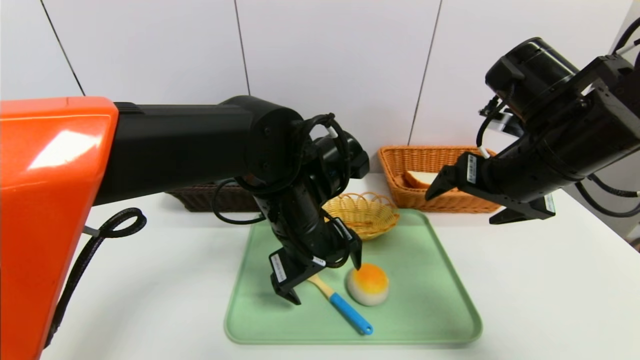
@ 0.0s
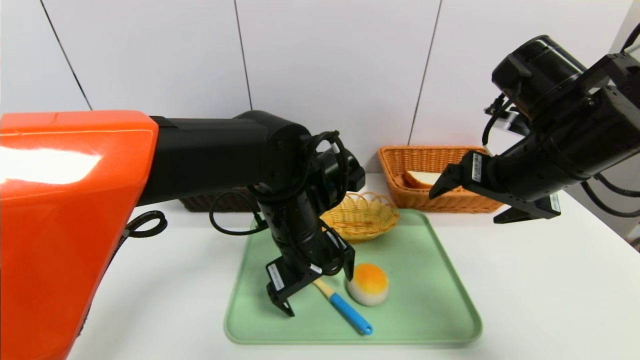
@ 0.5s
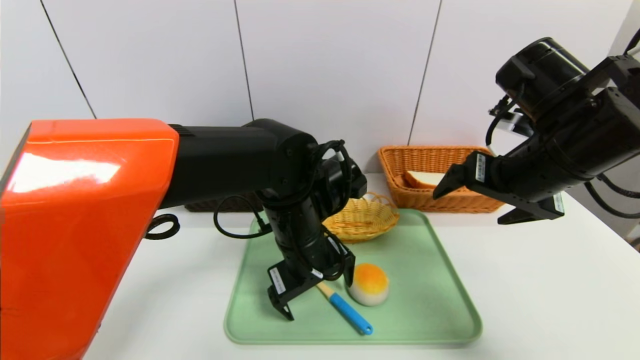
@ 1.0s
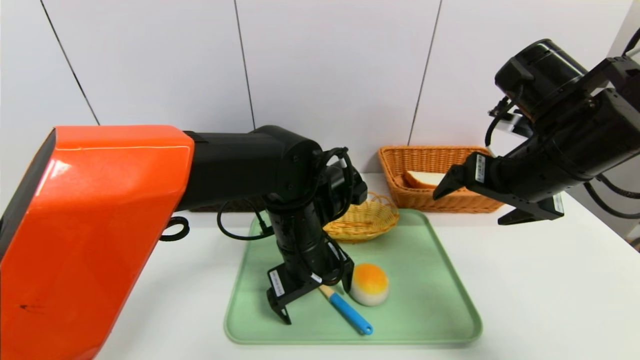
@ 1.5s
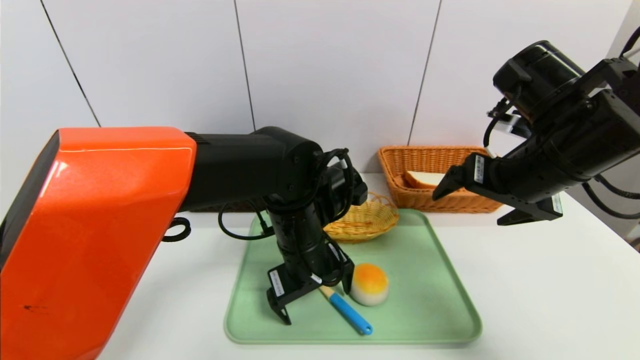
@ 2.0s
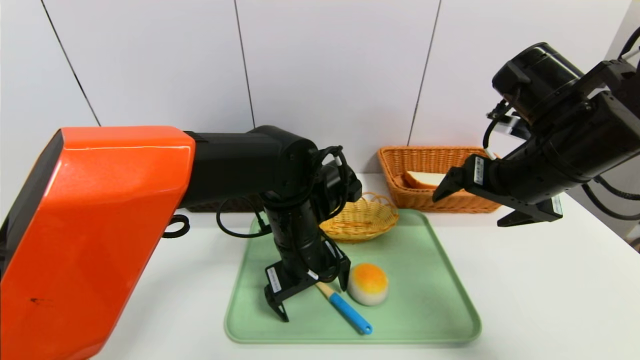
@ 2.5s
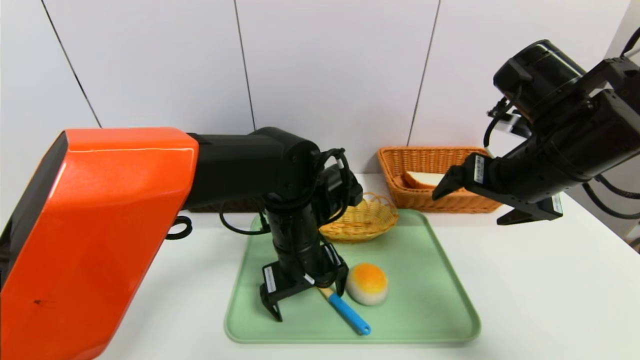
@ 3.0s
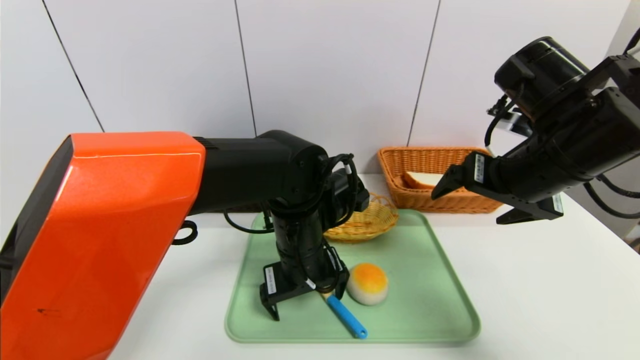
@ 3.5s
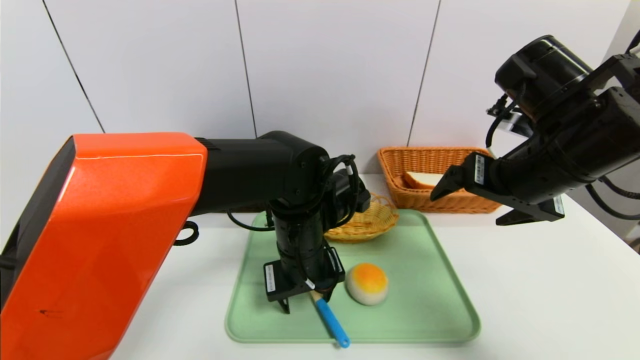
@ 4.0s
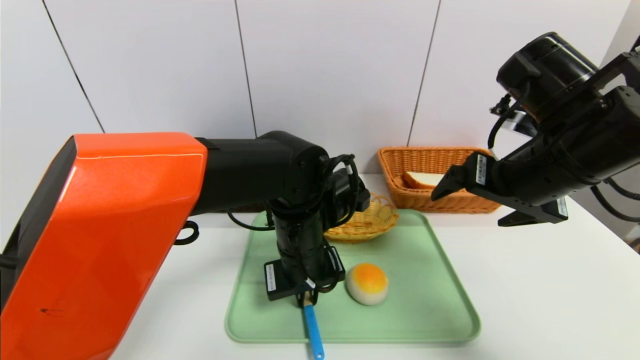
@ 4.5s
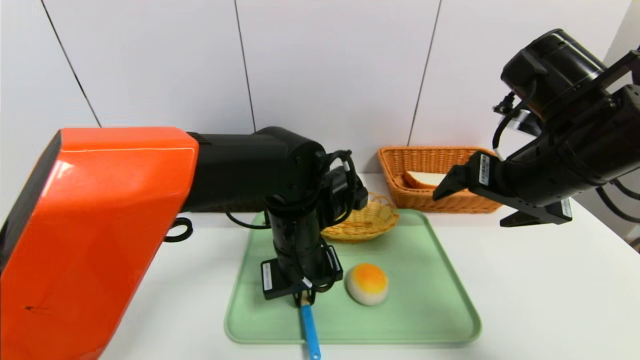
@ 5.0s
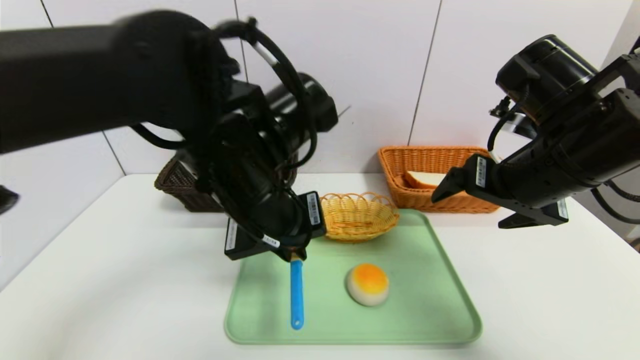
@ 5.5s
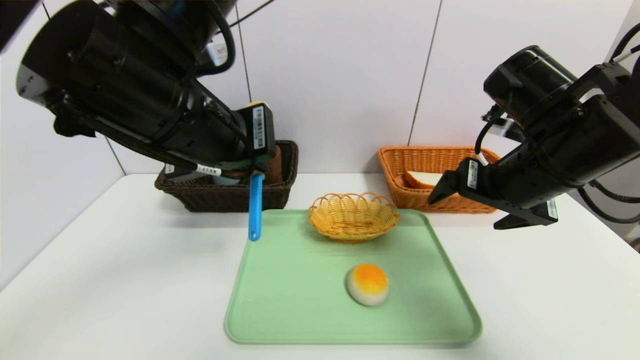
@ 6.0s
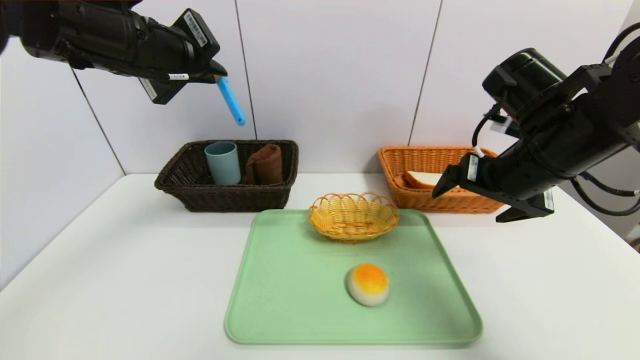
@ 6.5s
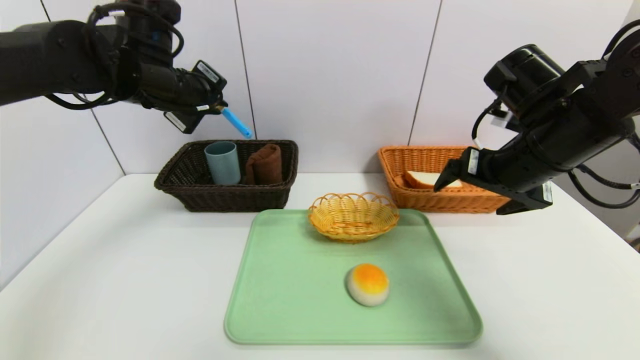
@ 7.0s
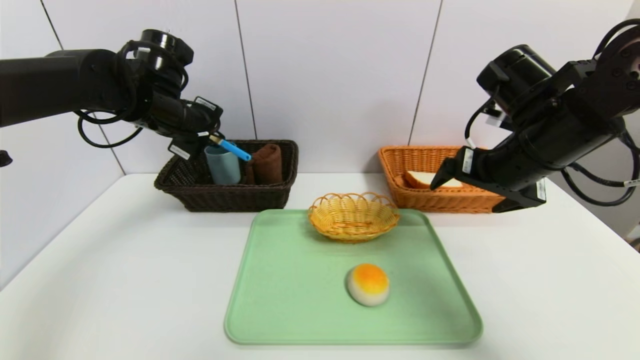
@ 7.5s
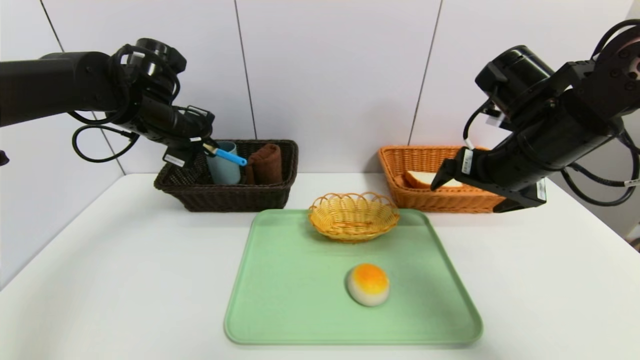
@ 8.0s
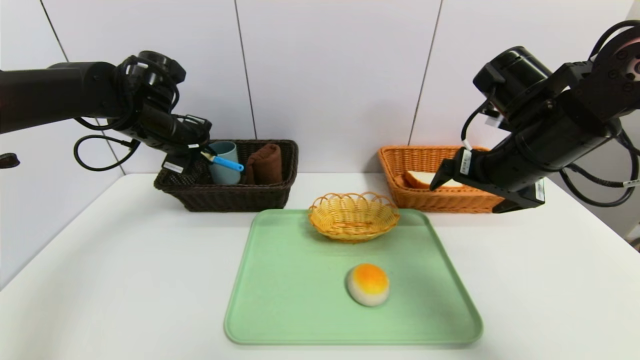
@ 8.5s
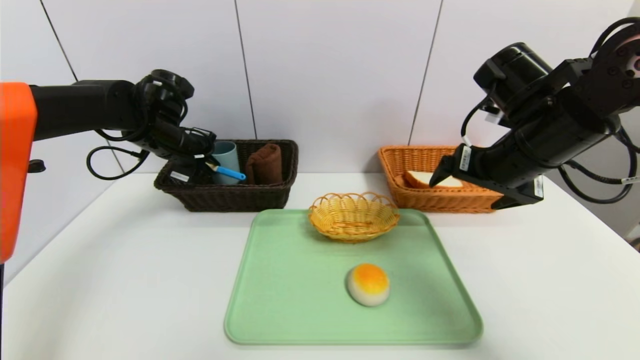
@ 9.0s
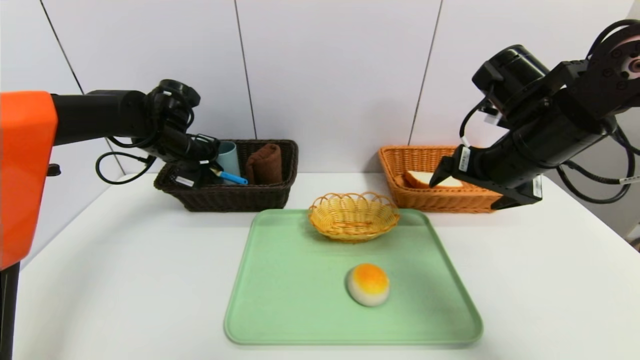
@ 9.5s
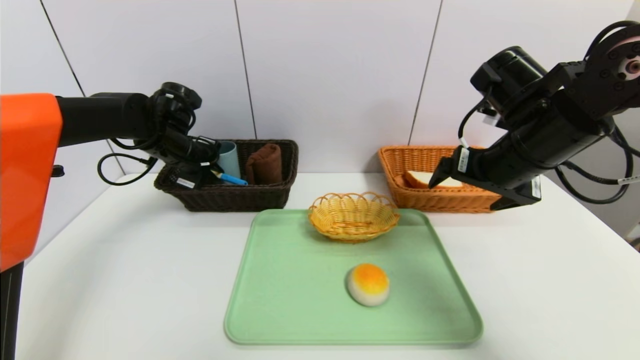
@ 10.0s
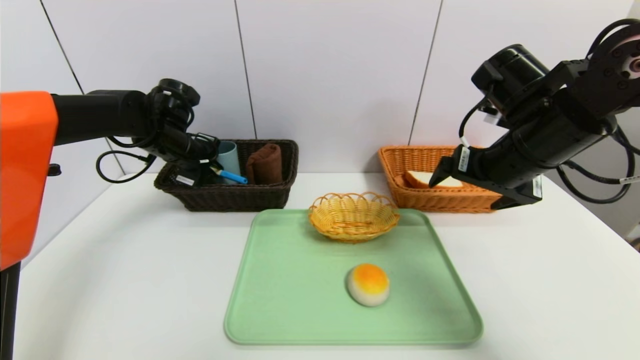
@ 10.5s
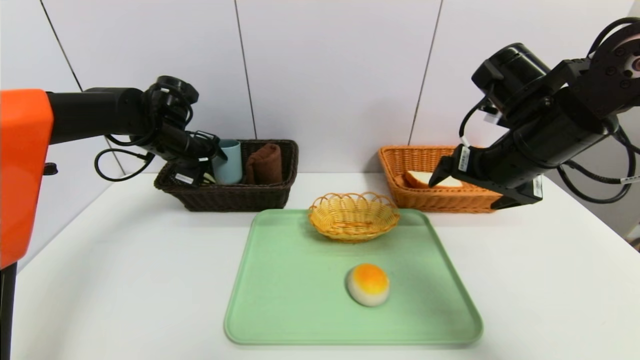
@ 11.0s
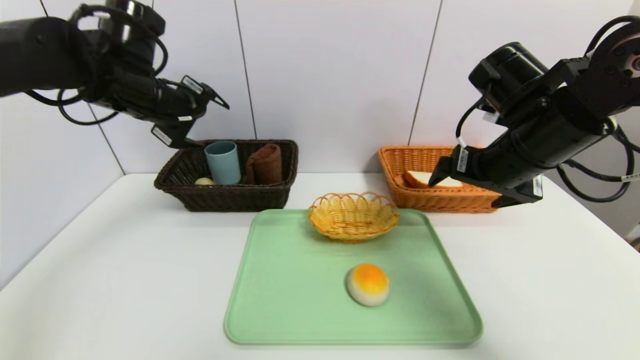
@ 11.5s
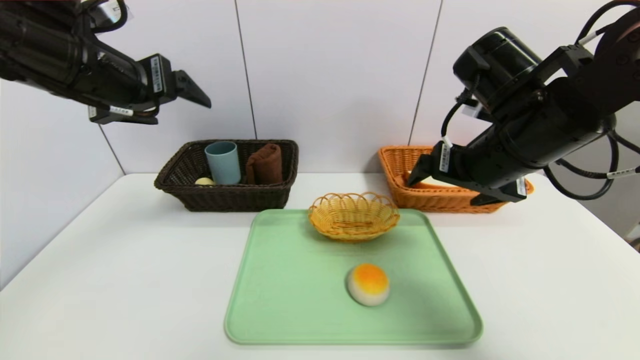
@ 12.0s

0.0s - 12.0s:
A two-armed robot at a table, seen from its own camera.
Task of the whole recording: place the food in the right basket with the right gripper, and place the non food items in the left basket with the left gripper.
Step, 0.0s - 11.0s: Grasp the spoon and put it in the left basket.
2.0s - 4.0s: The left gripper closes its fingers.
4.0s - 6.0s: The left gripper travels upward and to the left by roughly 20 cm, and closes.
6.0s - 8.0s: The left gripper moves forward, to the left and downward, roughly 25 cm.
8.0s - 10.0s: The left gripper shifts some 5 cm downward.
10.0s - 12.0s: The left gripper travels backward and upward by about 20 cm, and opens.

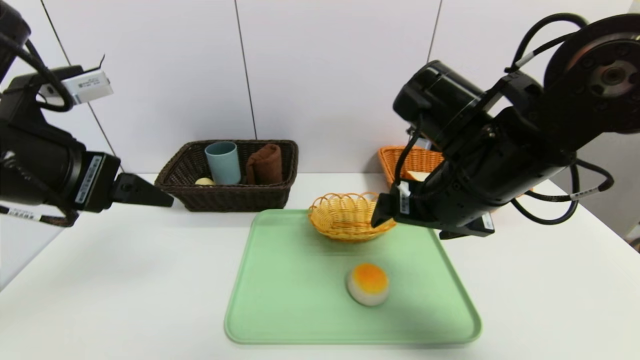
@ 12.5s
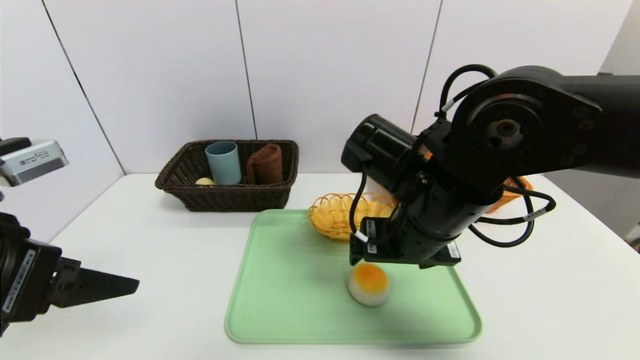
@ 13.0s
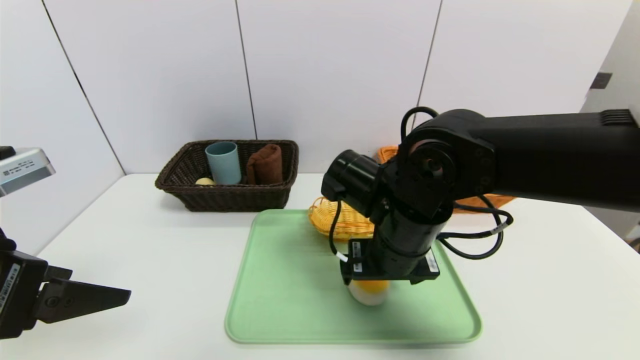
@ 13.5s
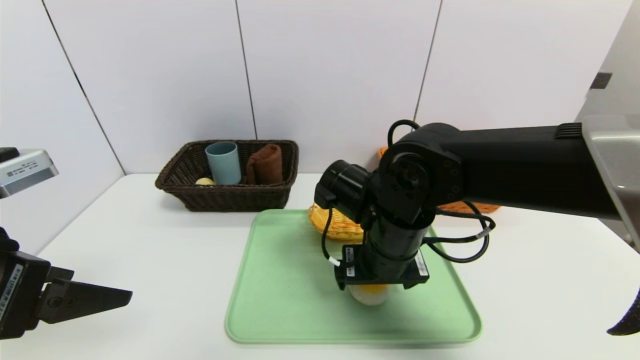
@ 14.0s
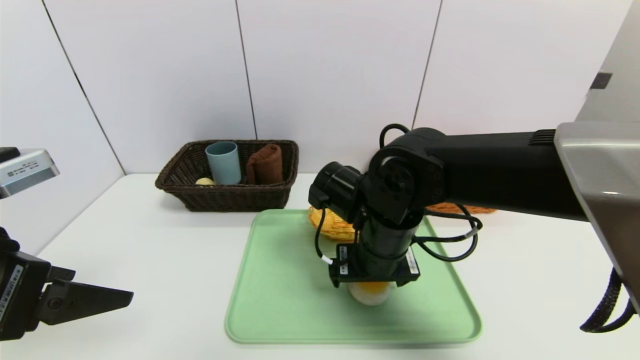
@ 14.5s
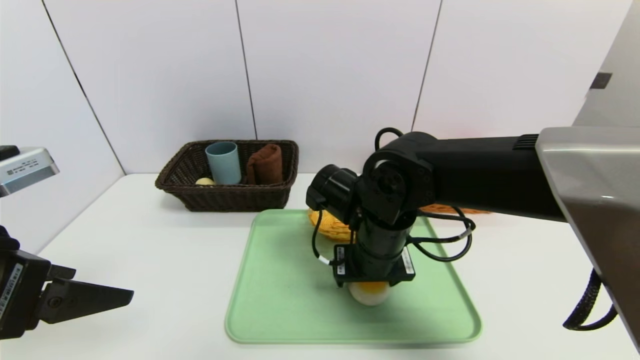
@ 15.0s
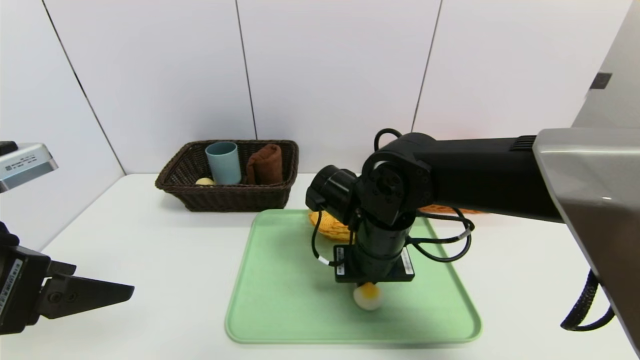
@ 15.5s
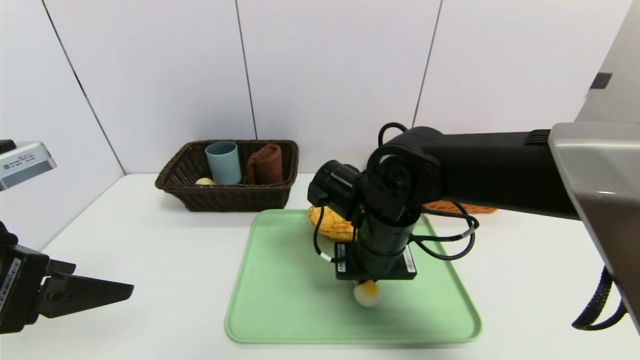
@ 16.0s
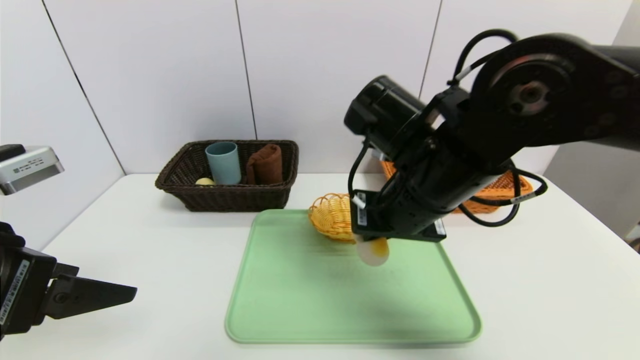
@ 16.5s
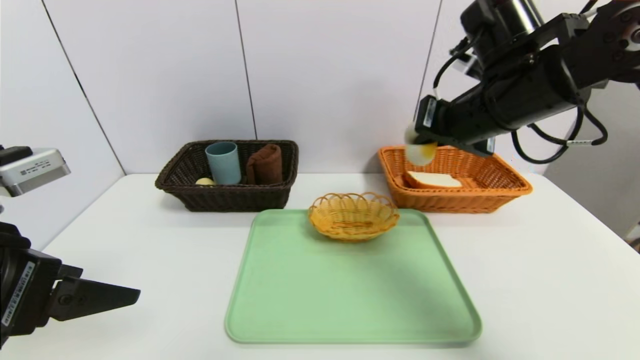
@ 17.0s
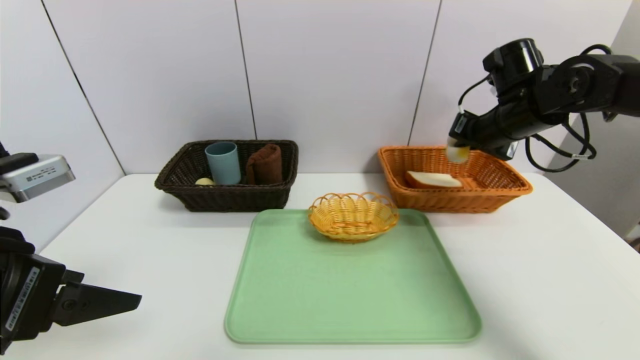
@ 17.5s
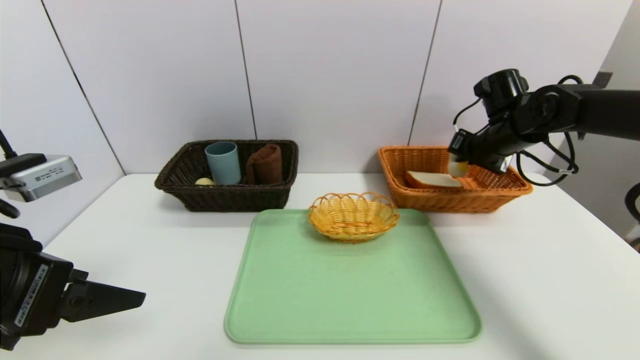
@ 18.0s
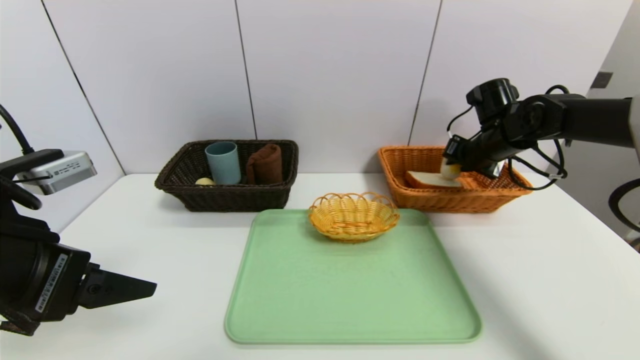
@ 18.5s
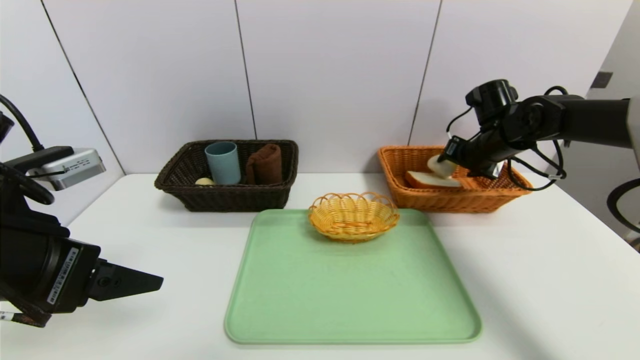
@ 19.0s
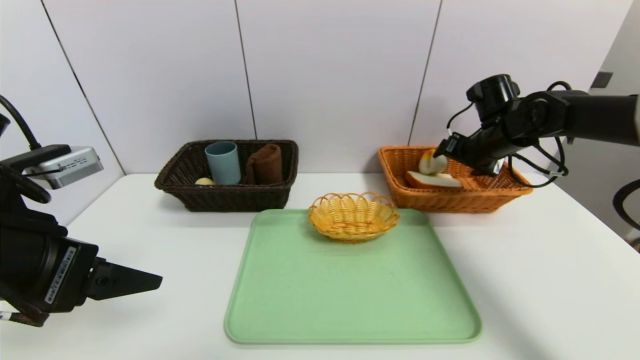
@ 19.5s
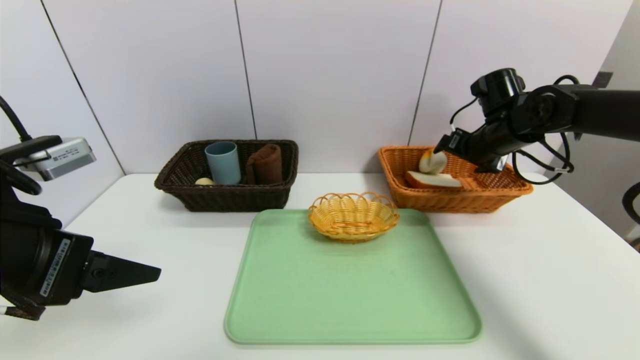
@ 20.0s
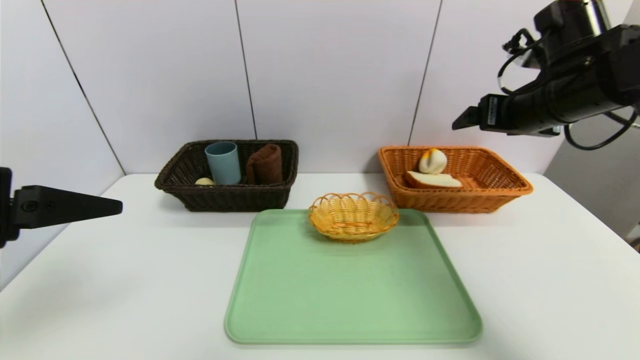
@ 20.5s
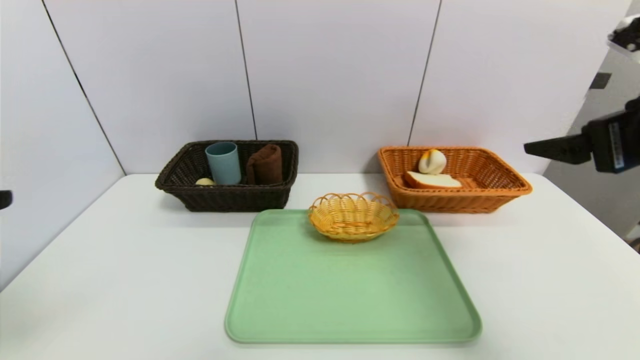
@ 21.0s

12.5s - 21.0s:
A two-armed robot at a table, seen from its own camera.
Task of the whole recording: place the food in the right basket with the right gripper, and place the non food items in the left basket with the left gripper.
Step, 12.5s - 20.0s: Grasp the egg yolk pastry and put it in the right basket.
12.5s - 14.5s: The right gripper is displaced downward and to the left by some 10 cm, while the left gripper goes approximately 5 cm backward.
14.5s - 16.5s: The right gripper heads upward, covering about 10 cm, and closes up.
16.5s - 19.0s: The right gripper travels to the right and forward by about 30 cm, and opens its fingers.
19.0s - 21.0s: The right gripper shifts roughly 30 cm backward and upward. Meanwhile the left gripper heads backward and upward, covering about 10 cm.
